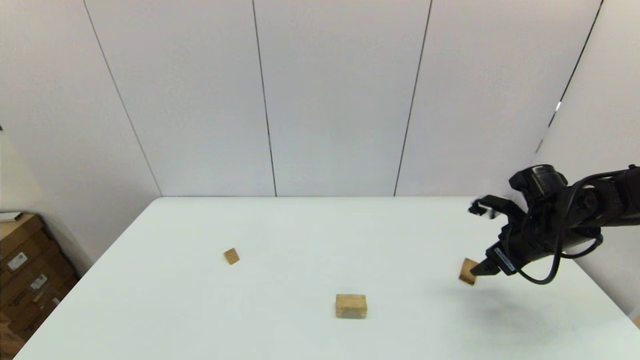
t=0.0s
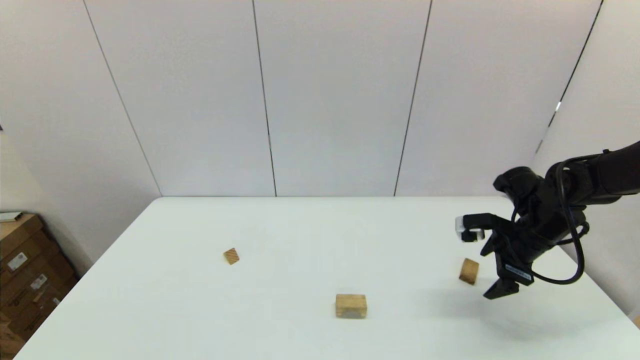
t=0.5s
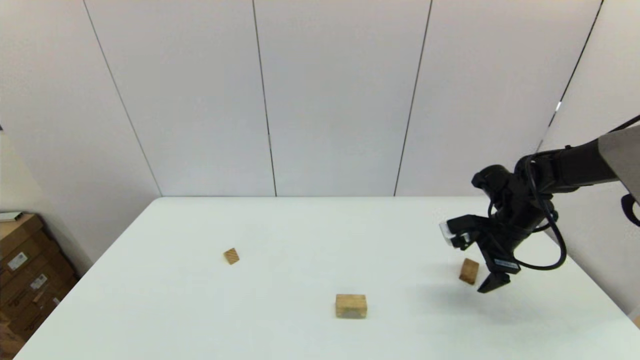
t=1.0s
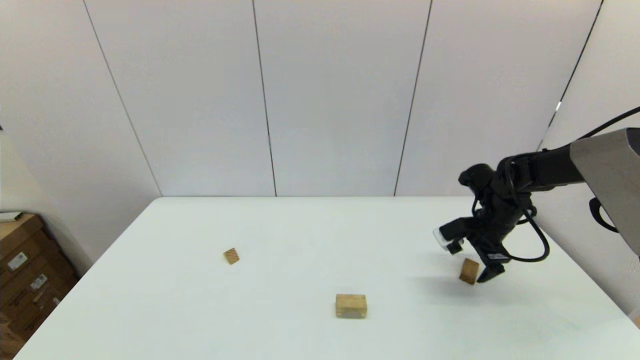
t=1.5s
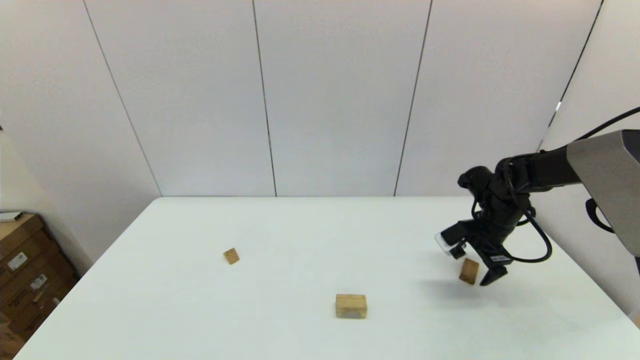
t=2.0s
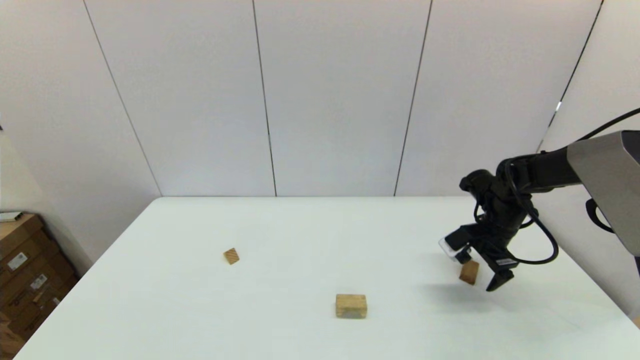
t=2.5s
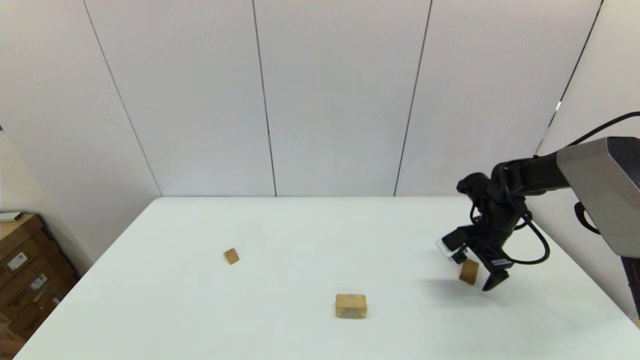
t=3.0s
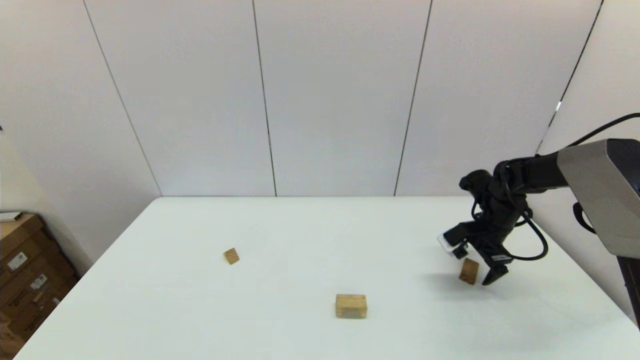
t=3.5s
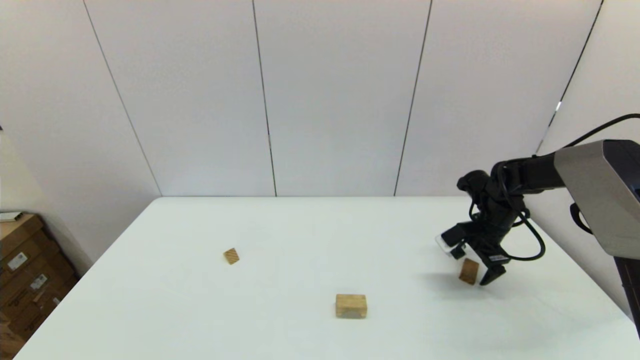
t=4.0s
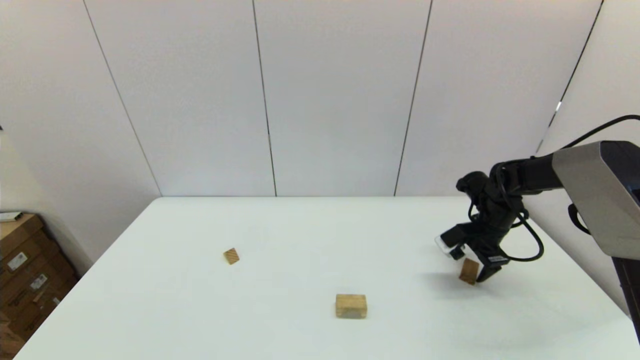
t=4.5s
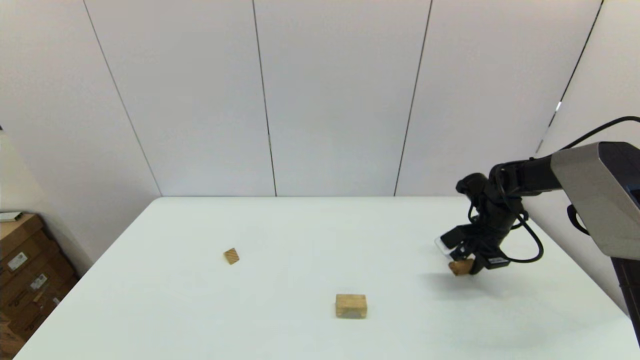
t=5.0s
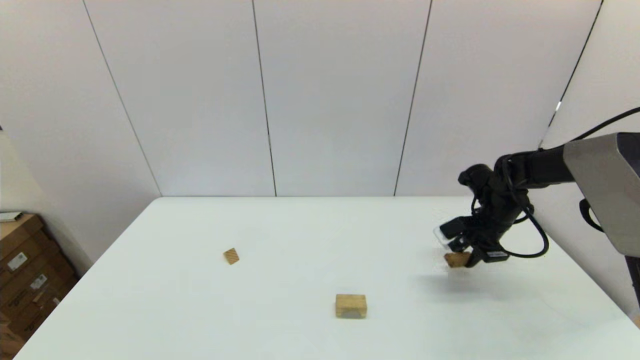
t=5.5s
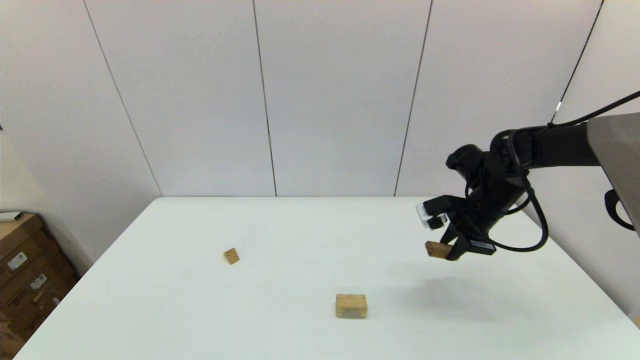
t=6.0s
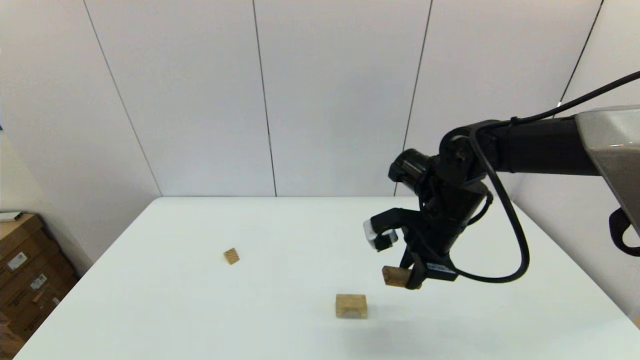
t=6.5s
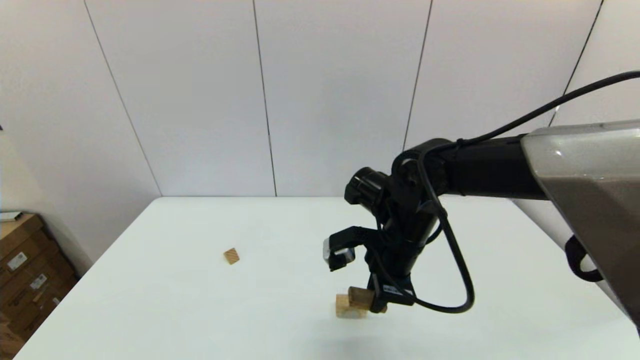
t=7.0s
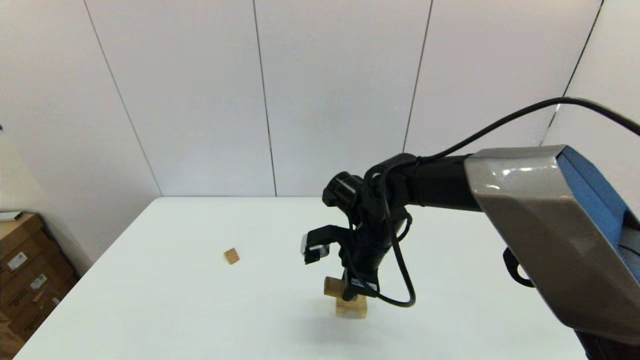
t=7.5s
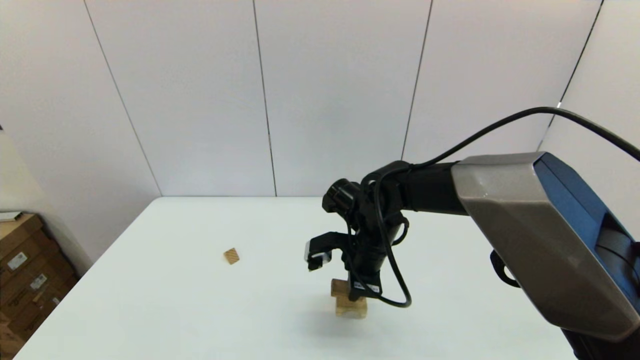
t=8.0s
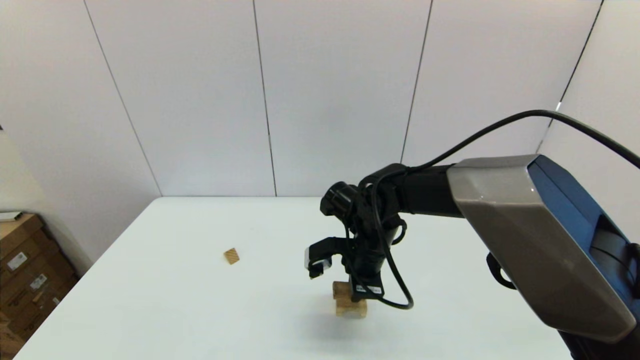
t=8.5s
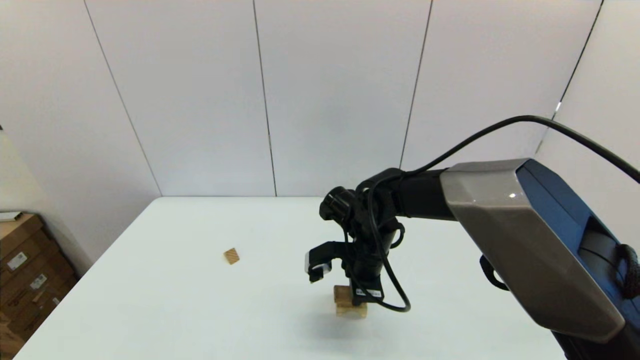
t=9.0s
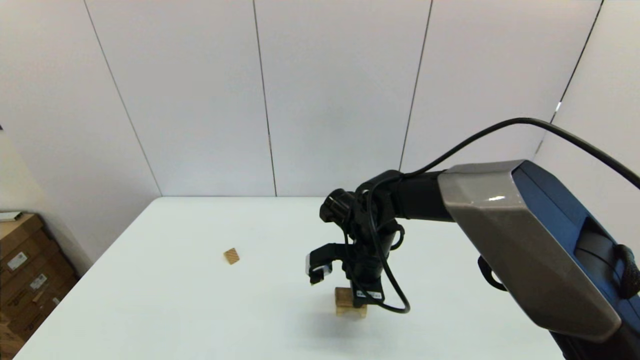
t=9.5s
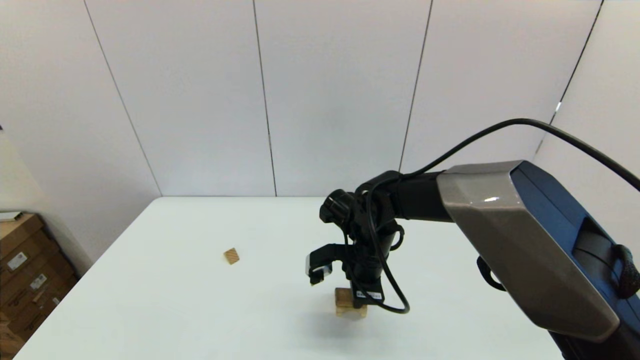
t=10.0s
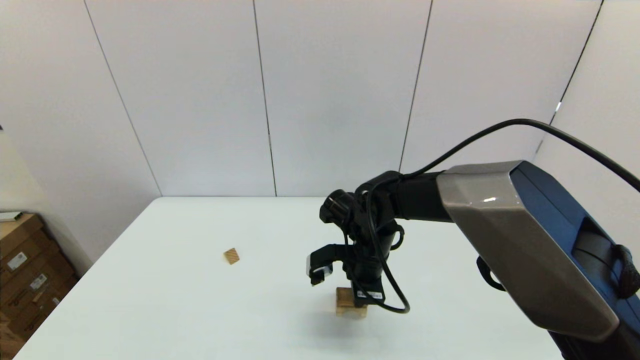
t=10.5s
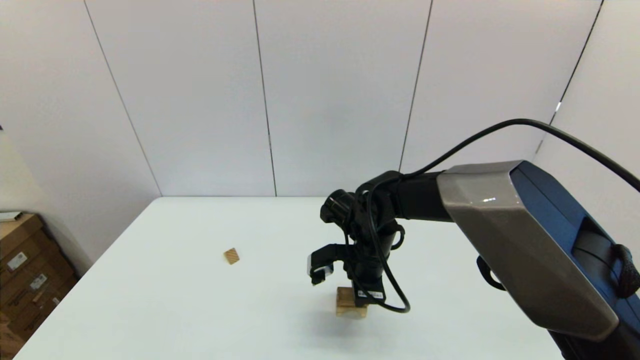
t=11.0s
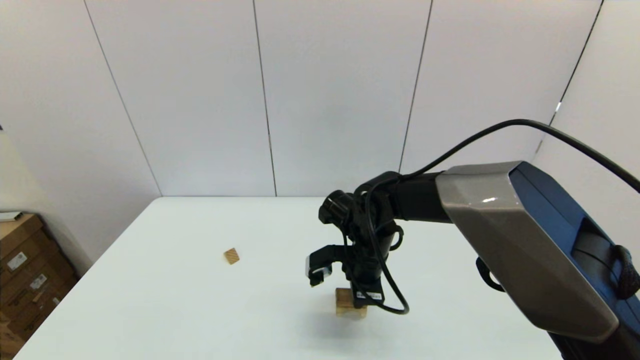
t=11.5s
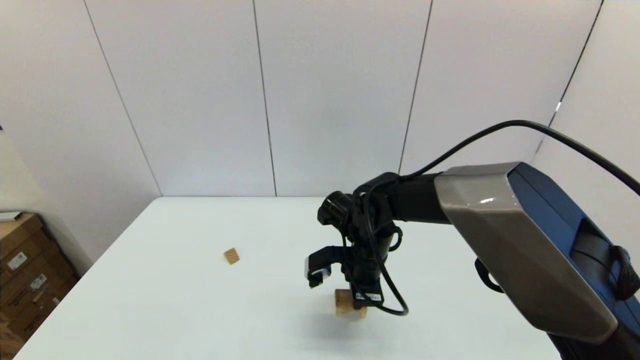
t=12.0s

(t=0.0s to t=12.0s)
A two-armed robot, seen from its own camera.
Task of the whole recording: place the arched building blocks in the center of the table, set up the rectangular building blocks, and then set up the triangular building blocks.
Step, t=0.0s - t=4.5s: Grasp the box-shaped block with the right gripper.
t=0.0s - t=2.0s: The right gripper moves forward, some 10 cm.
t=2.0s - t=4.0s: The grippers stay close to where they were, moving slightly.
t=4.0s - t=6.0s: The right gripper shifts some 10 cm upward and to the left, and closes up.
t=6.0s - t=8.0s: The right gripper shifts some 20 cm to the left.
t=8.0s - t=10.0s: There are only small adjustments of the grippers.
t=10.0s - t=12.0s: Both grippers stay put.

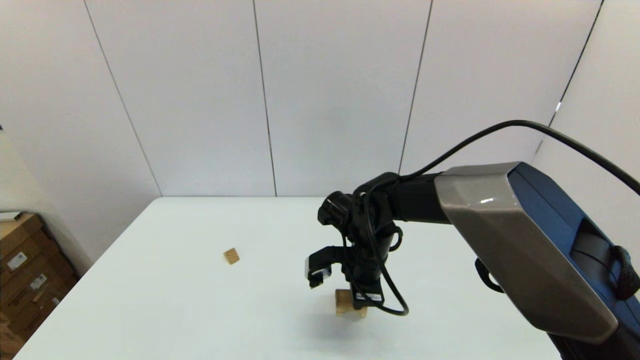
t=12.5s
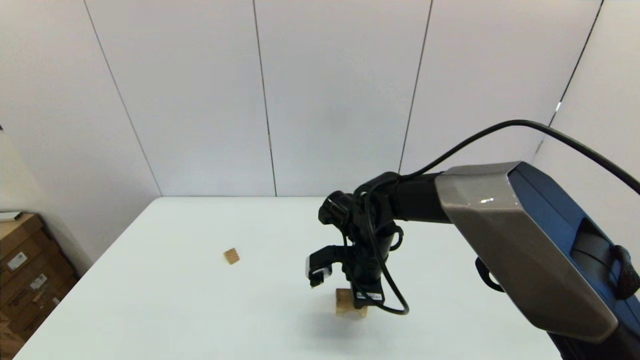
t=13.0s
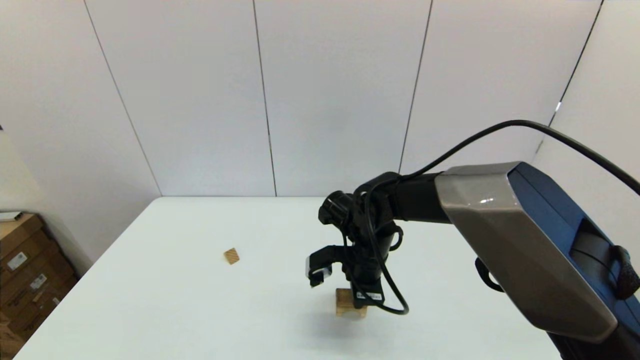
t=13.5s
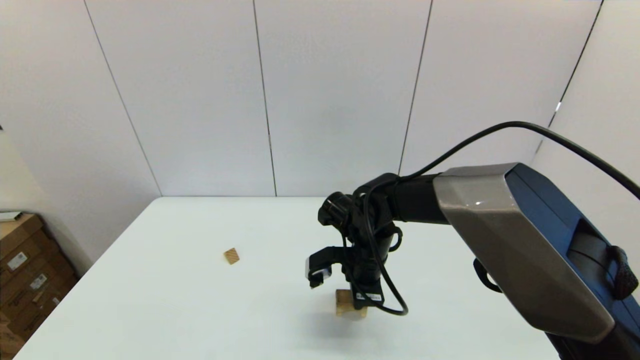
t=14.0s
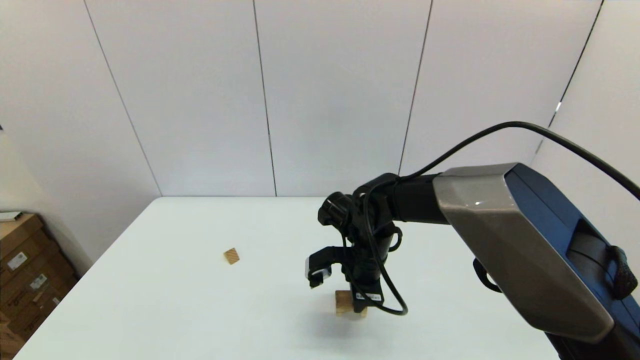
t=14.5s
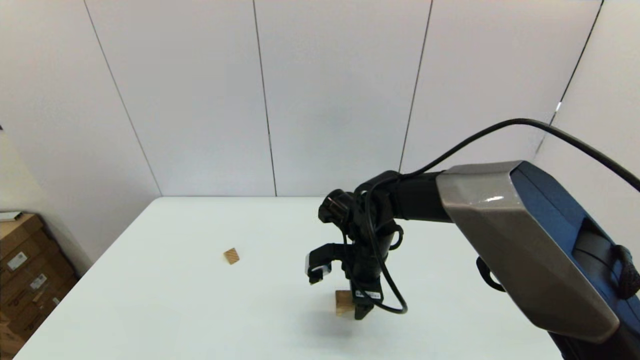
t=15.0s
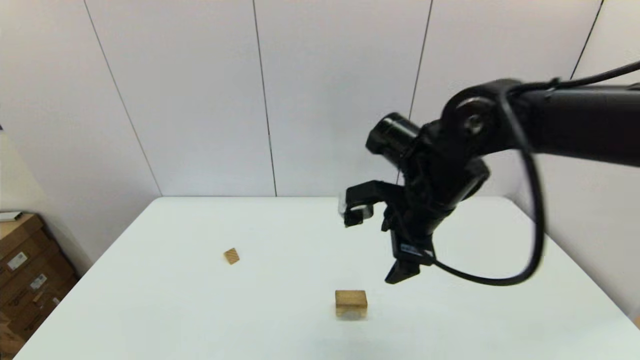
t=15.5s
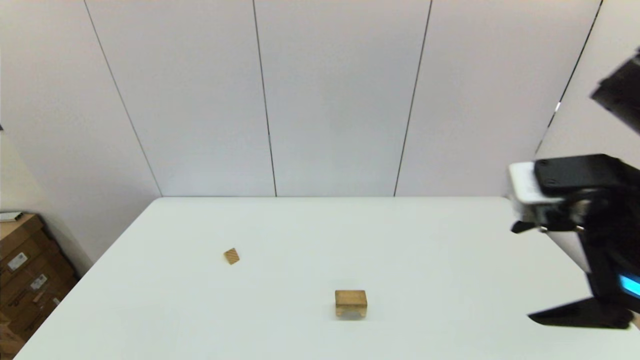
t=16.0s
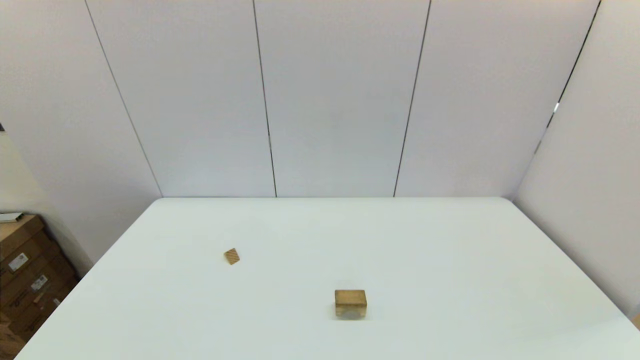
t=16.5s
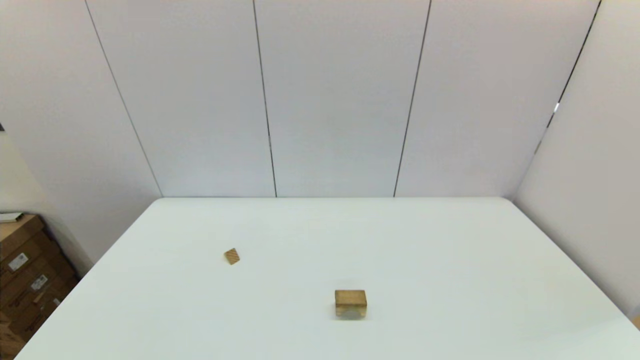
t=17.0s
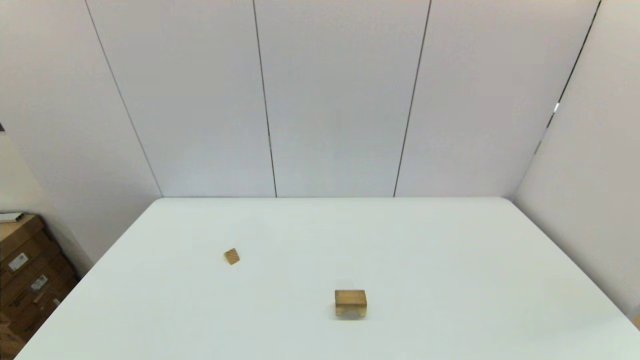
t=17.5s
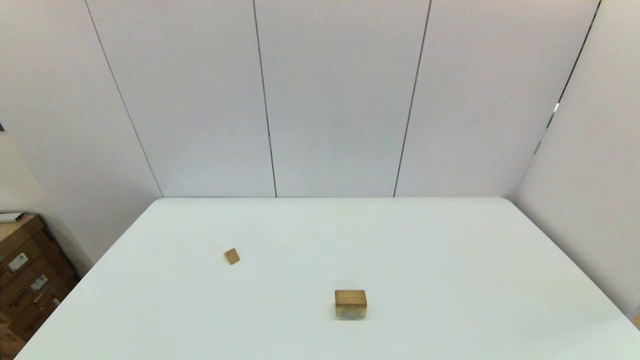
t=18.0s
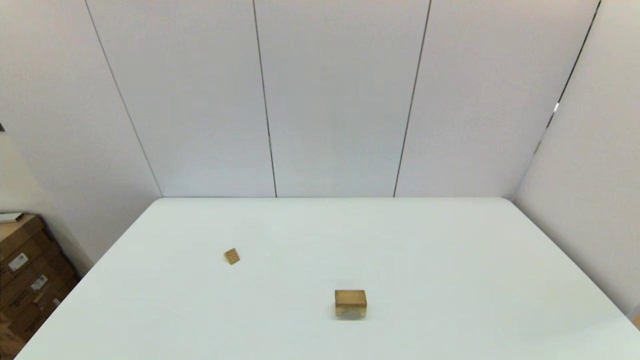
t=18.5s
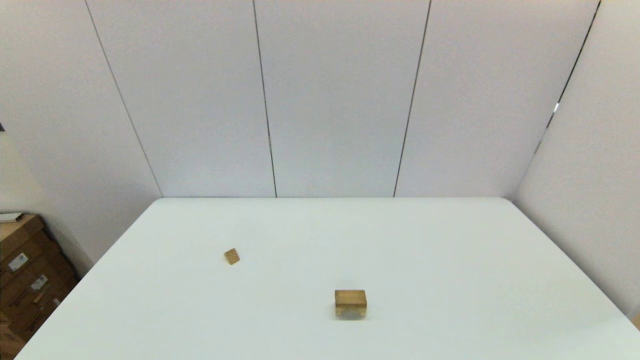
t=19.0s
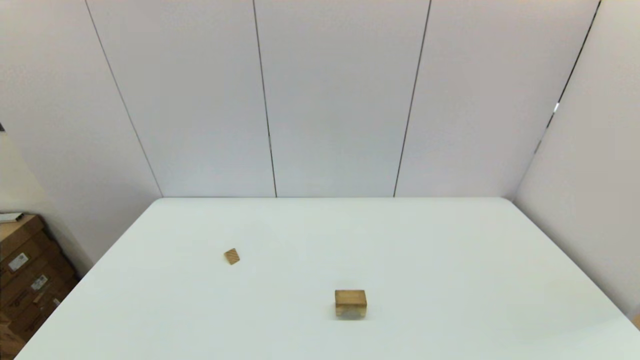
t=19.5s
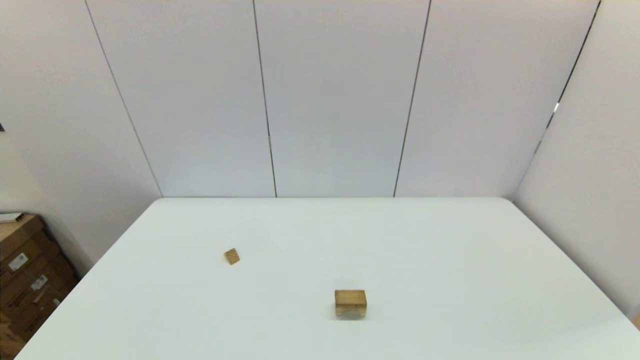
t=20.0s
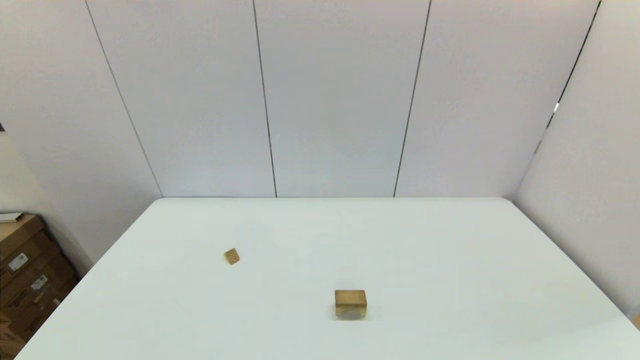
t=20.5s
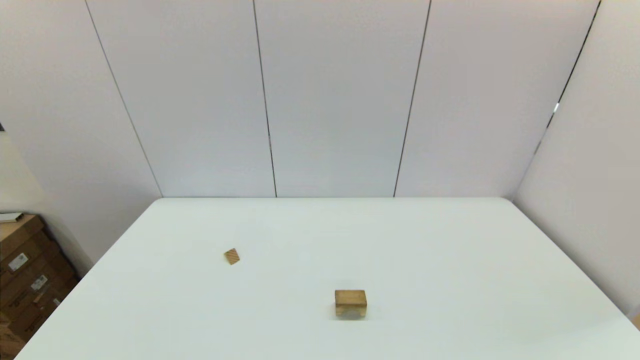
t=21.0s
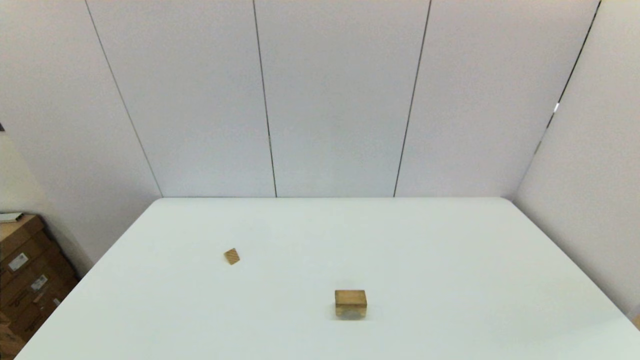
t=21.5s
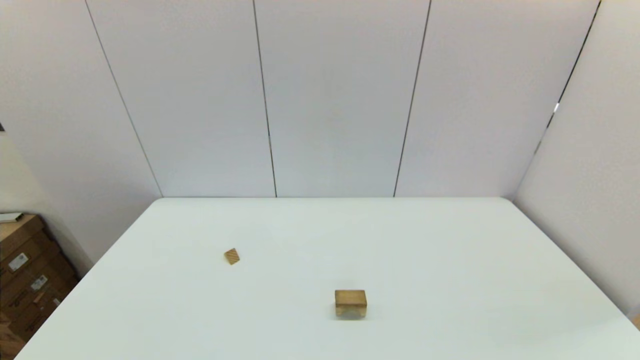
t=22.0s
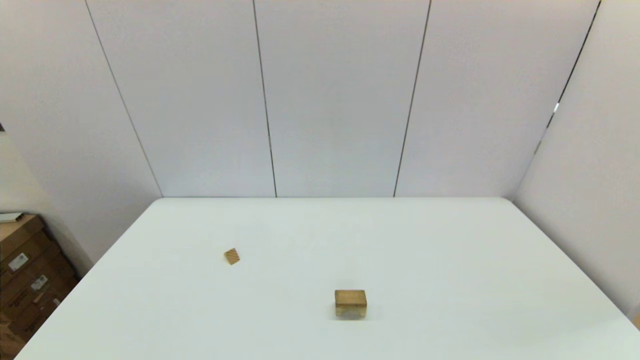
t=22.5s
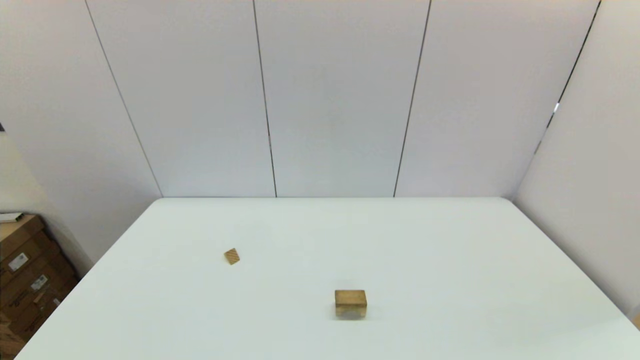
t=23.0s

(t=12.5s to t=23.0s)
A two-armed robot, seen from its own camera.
Task of the whole recording: place the arched building blocks in the center of the table, set up the rectangular building blocks, and then set up the triangular building blocks.
Step, t=12.5s - t=14.5s: Place the box-shaped block onto the arch-shaped block with the right gripper.
t=12.5s - t=14.5s: Both grippers stay about where they are.
t=14.5s - t=16.5s: The right gripper heads backward, to the right and upward, covering some 40 cm, and opens up.
